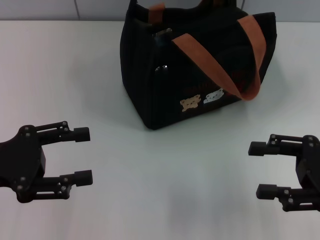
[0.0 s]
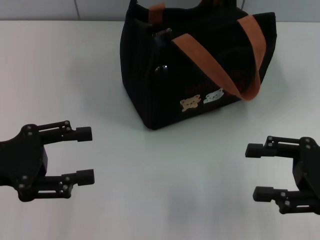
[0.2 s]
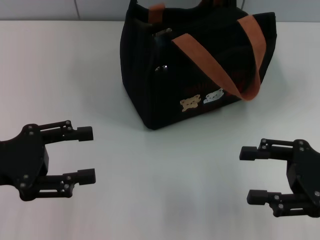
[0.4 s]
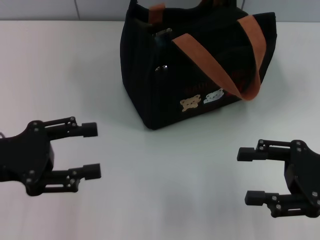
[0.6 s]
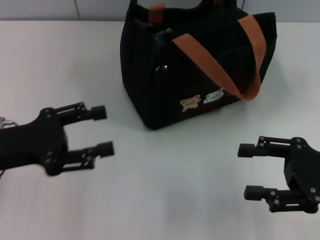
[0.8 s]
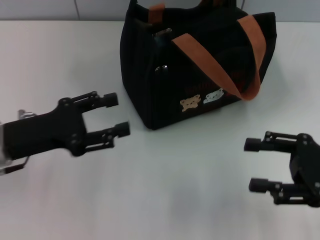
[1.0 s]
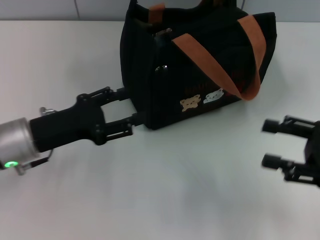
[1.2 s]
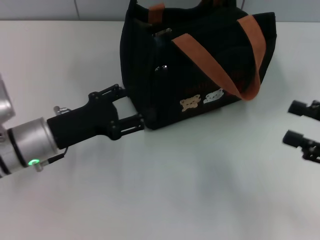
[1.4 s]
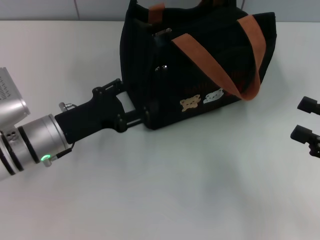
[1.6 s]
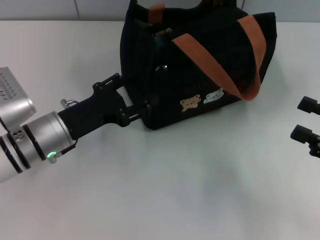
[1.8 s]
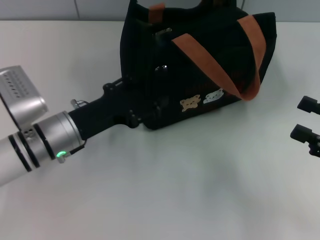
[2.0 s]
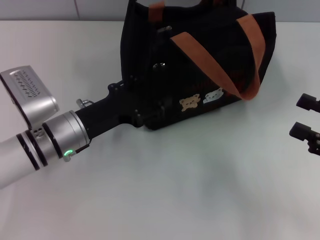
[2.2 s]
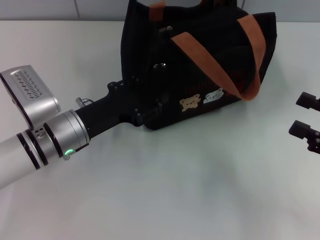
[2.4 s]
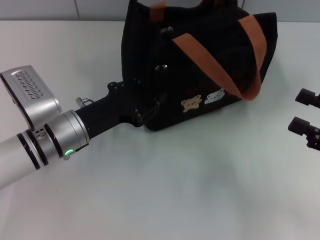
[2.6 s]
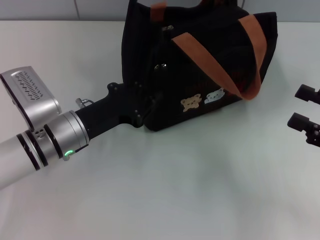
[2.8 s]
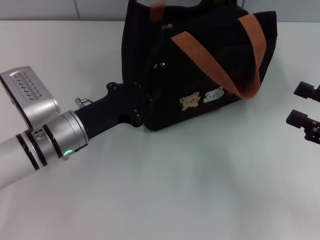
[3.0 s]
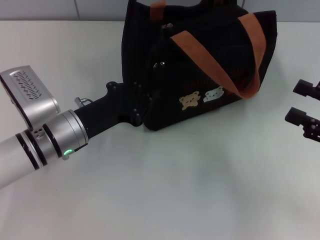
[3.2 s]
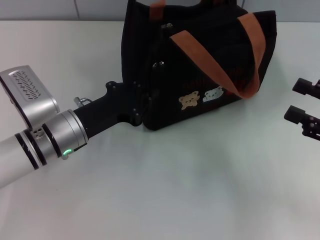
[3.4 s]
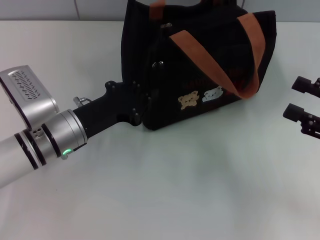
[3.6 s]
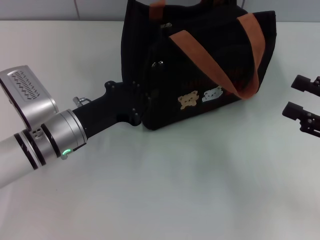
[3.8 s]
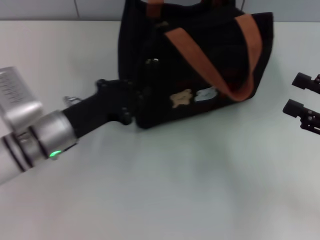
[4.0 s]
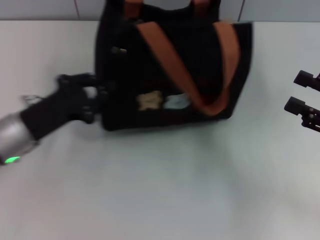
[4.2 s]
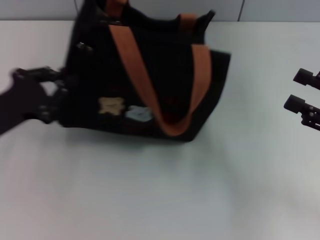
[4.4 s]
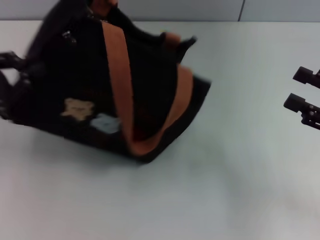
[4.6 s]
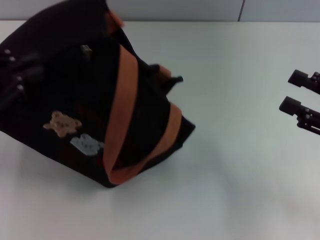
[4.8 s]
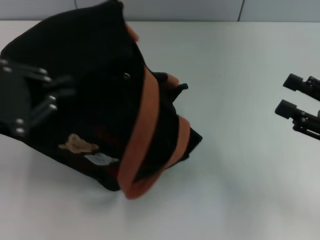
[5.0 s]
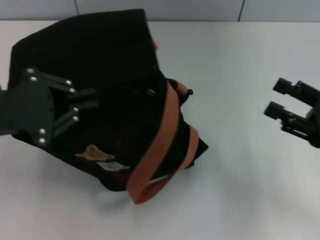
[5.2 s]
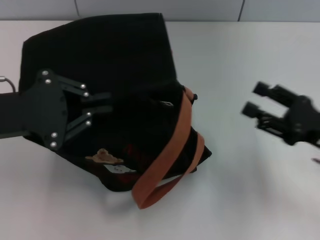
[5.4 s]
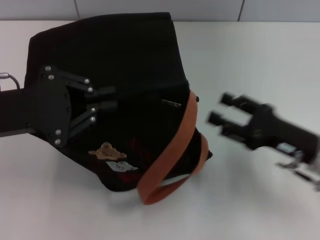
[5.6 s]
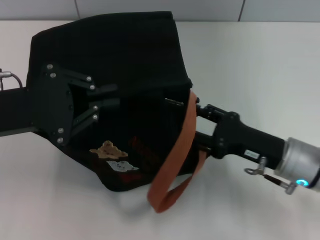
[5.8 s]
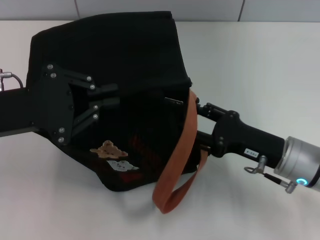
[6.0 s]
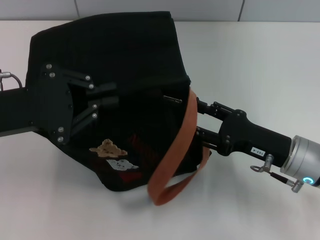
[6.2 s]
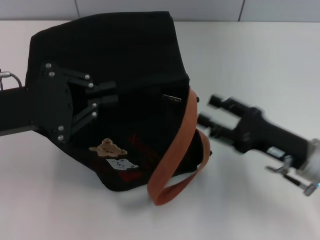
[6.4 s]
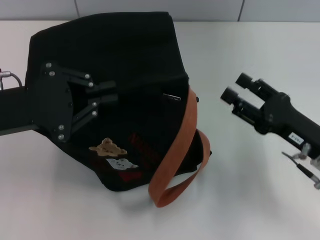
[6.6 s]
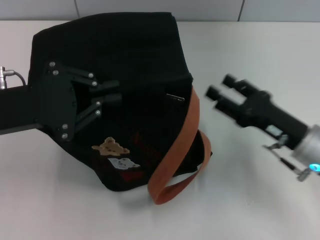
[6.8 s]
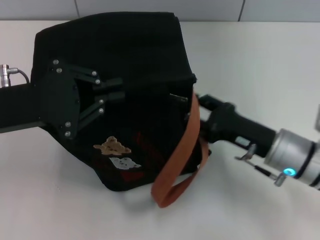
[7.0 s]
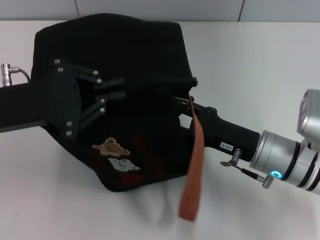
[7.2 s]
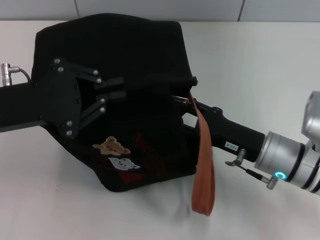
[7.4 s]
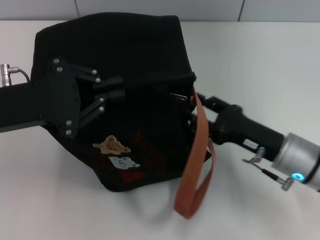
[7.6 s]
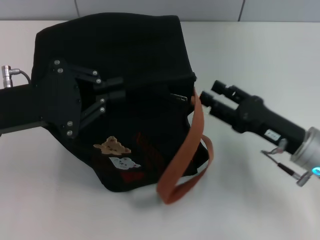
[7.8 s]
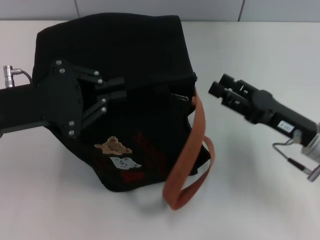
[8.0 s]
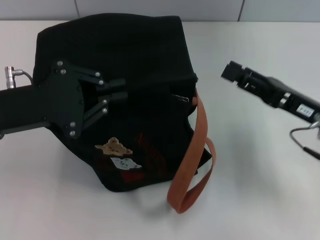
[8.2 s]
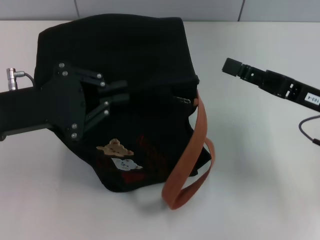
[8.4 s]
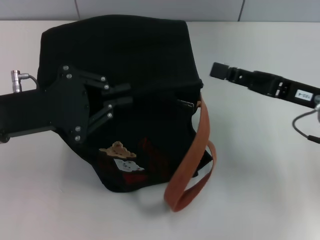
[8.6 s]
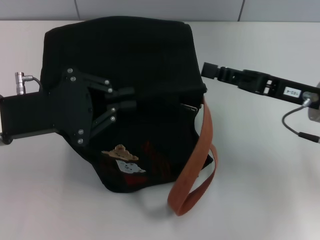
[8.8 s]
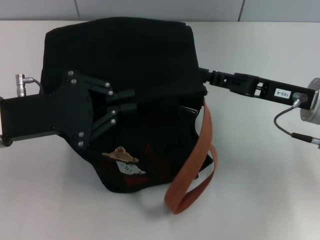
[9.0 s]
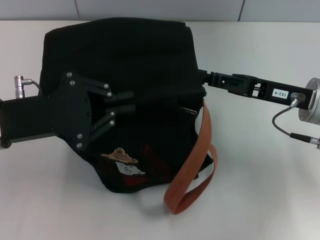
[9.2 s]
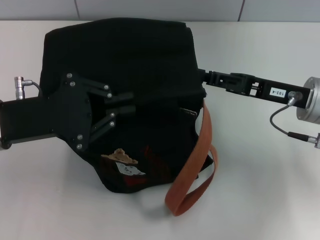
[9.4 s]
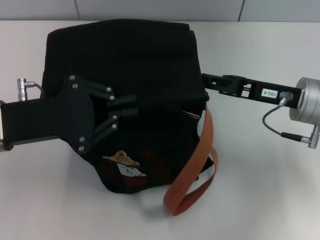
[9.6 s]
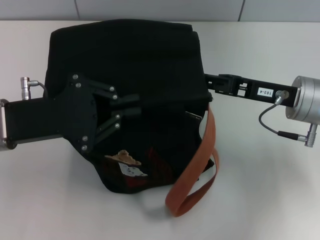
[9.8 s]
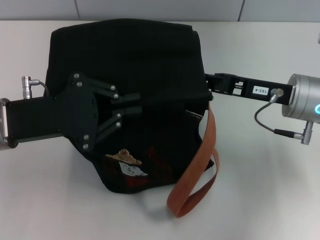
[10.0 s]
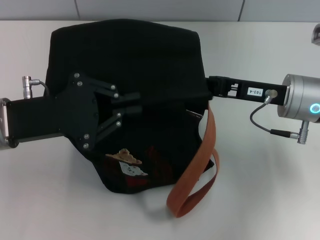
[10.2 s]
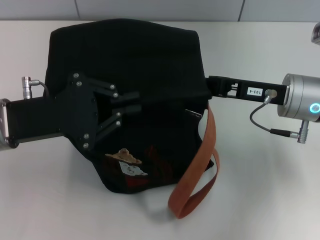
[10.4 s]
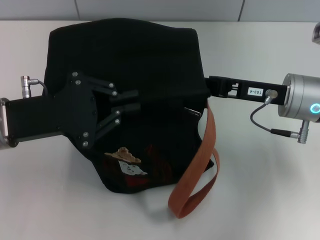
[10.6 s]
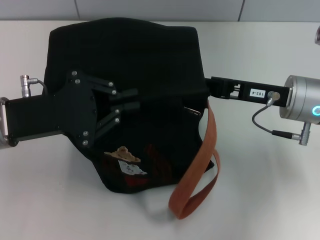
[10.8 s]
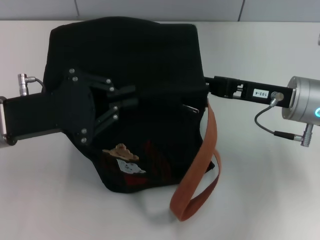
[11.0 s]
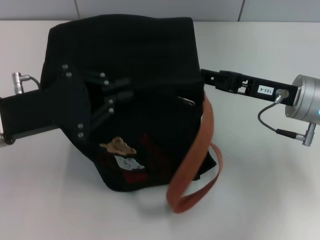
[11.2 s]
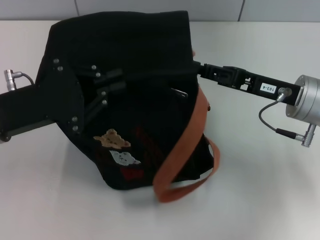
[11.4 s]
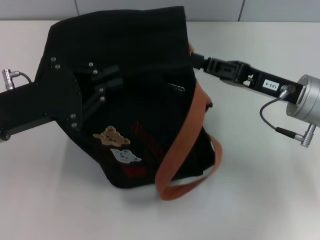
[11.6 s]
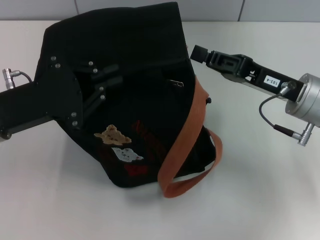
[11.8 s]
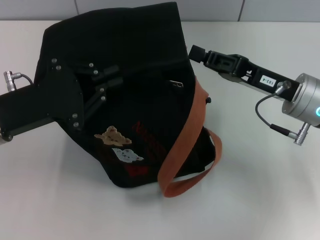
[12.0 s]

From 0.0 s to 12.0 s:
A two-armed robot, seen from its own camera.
From 0.0 s to 1.6 s: The left gripper heads to the right, downward and forward, covering some 15 cm.
From 1.6 s to 3.0 s: The left gripper closes up.
From 3.0 s to 4.4 s: The left gripper heads to the left, covering about 10 cm.
From 4.4 s to 6.0 s: The right gripper moves to the left and downward, approximately 15 cm. The left gripper heads upward, covering approximately 5 cm.
From 6.0 s to 7.6 s: The right gripper travels to the right and back again, about 5 cm each way.
From 7.6 s to 9.0 s: The right gripper goes some 10 cm upward and forward, and closes.
From 9.0 s to 10.4 s: The right gripper closes up.

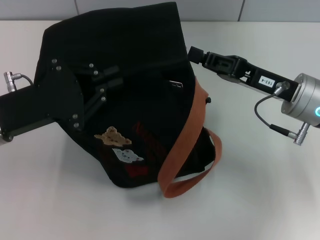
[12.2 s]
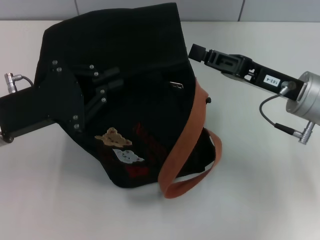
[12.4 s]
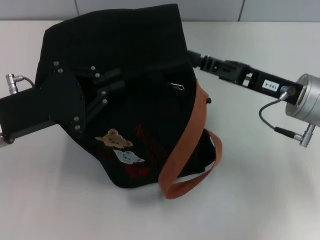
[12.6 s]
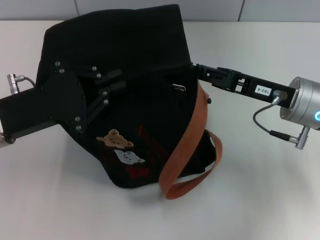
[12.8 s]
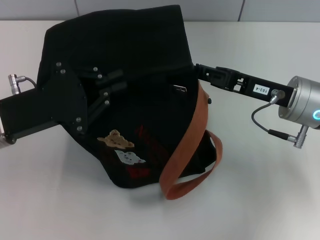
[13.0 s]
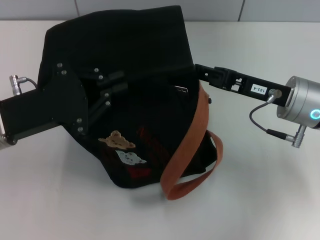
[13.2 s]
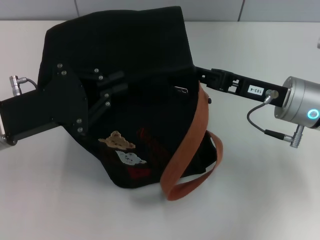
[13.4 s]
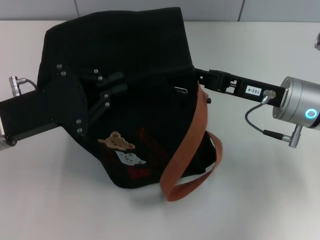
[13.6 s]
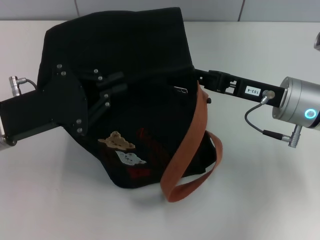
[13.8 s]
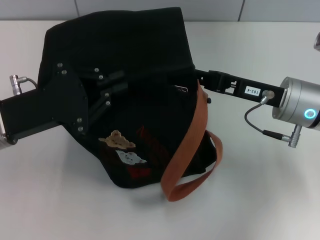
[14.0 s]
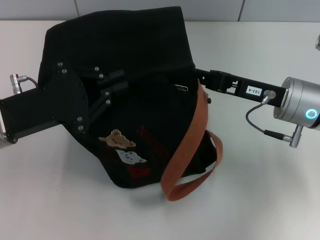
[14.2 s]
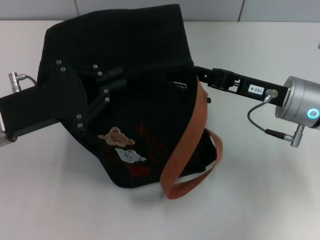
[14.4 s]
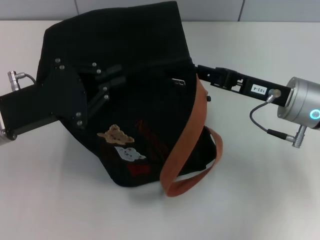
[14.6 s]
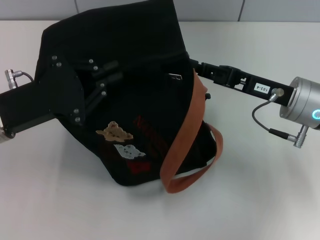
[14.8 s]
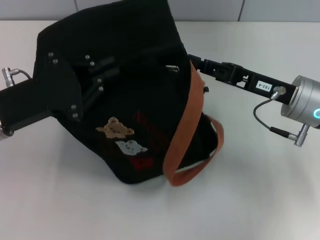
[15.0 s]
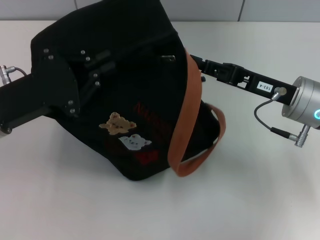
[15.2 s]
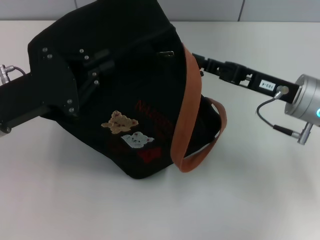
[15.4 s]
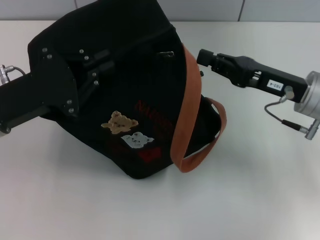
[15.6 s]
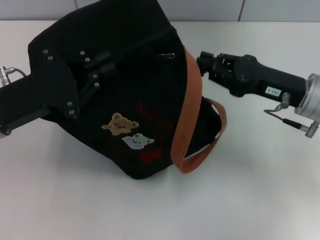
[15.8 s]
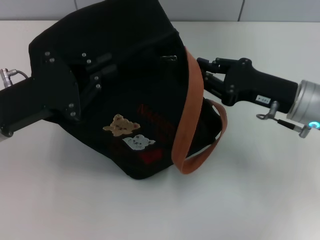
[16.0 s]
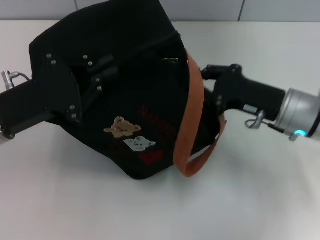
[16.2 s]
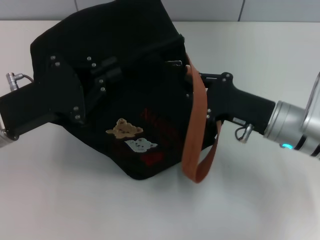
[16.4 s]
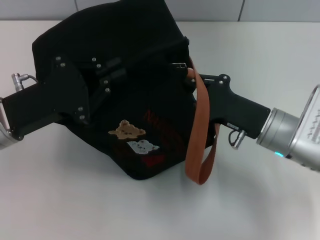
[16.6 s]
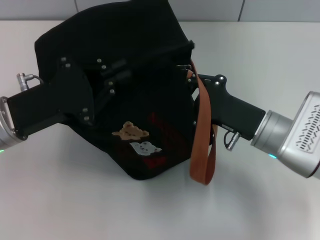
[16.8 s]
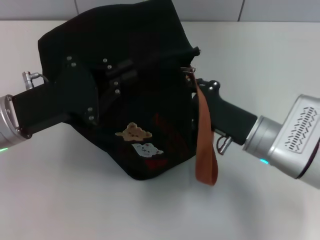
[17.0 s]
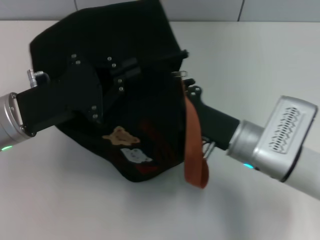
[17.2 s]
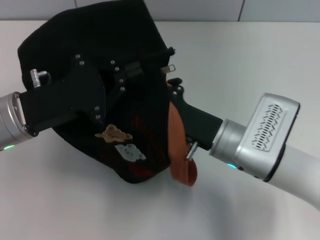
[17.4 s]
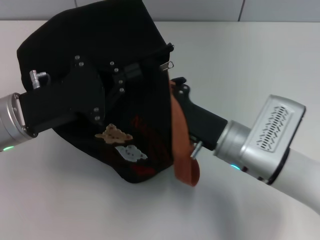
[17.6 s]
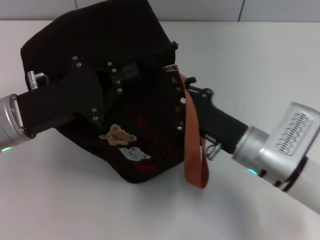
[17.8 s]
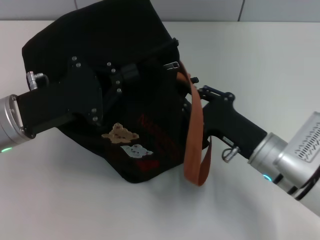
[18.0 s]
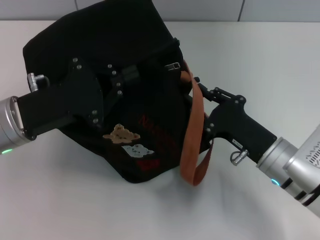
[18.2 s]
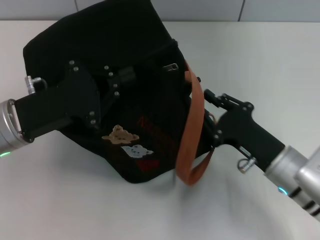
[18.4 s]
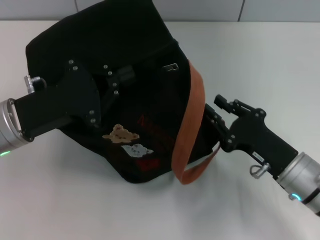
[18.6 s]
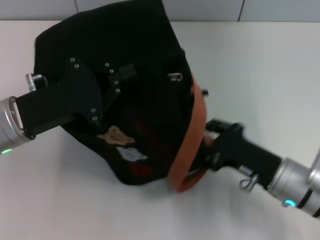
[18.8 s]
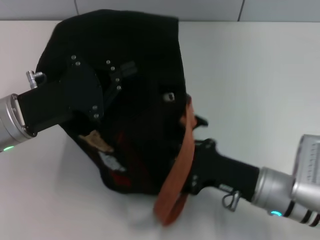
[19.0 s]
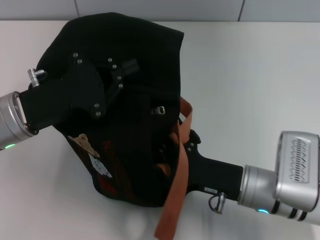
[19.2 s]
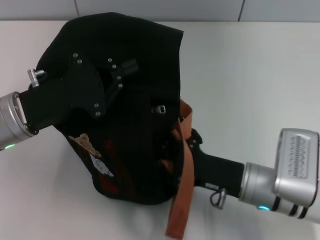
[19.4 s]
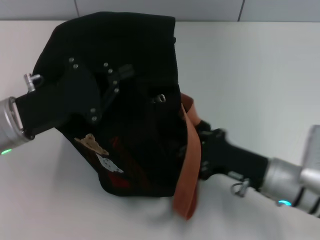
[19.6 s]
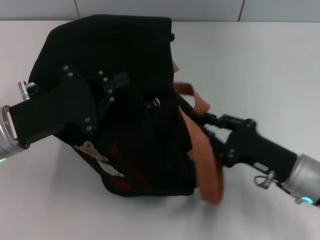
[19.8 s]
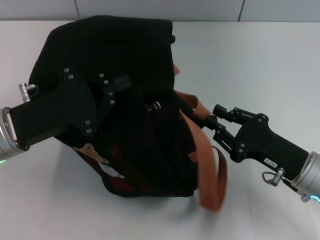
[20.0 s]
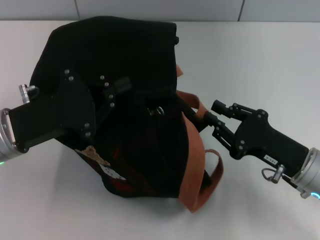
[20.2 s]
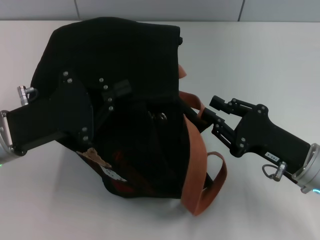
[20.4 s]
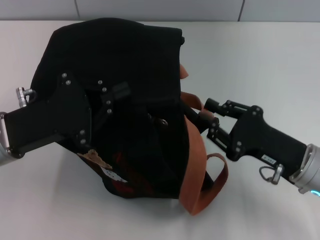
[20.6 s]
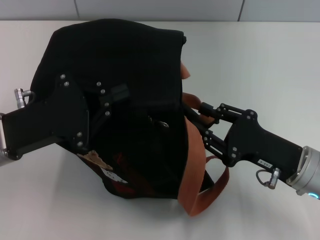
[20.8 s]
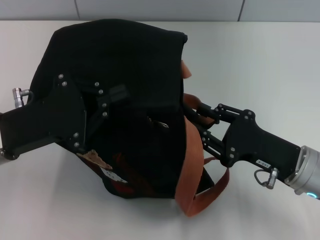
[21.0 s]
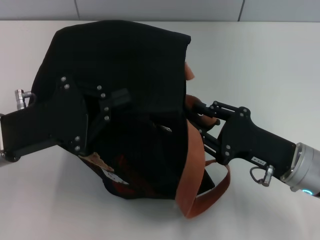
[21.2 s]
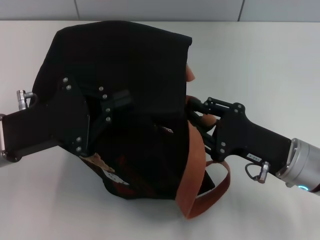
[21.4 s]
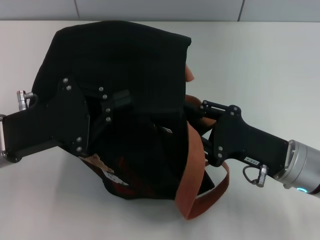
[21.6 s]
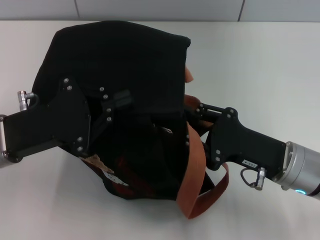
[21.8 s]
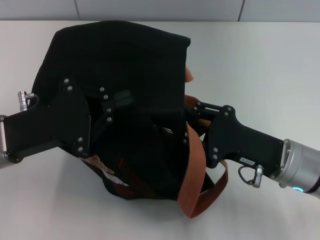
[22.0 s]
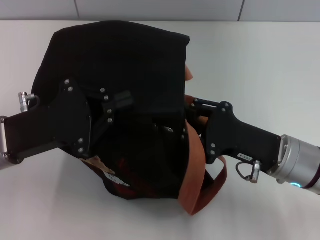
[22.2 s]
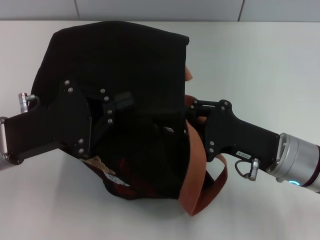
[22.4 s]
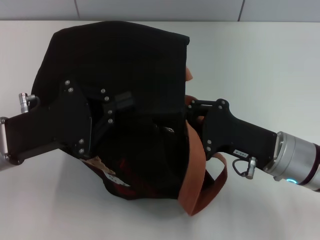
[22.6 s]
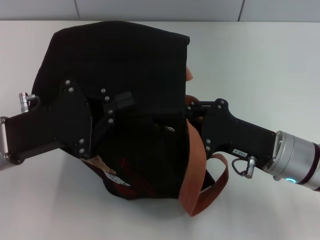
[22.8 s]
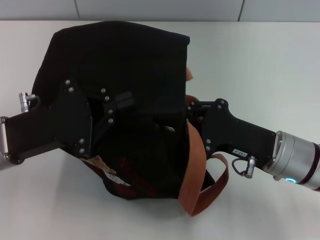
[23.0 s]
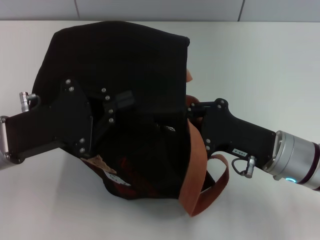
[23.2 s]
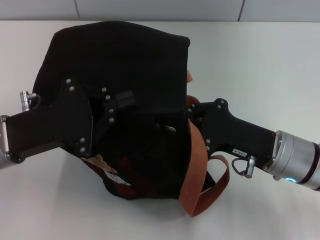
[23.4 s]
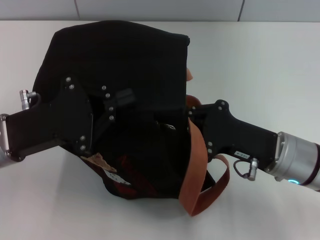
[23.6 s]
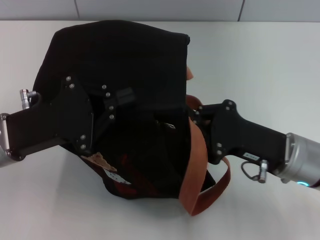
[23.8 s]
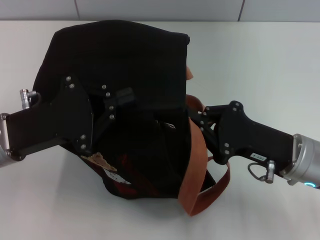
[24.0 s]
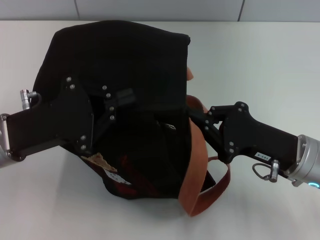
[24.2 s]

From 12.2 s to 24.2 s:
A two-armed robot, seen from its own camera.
From 12.2 s to 13.8 s: The grippers move only a little.
From 15.2 s to 16.6 s: The right gripper ends up about 5 cm from where it was.
From 16.6 s to 18.2 s: The right gripper ends up about 5 cm from where it was.
From 19.8 s to 22.6 s: There are only small adjustments of the grippers.
From 22.6 s to 24.2 s: The right gripper closes its fingers.
